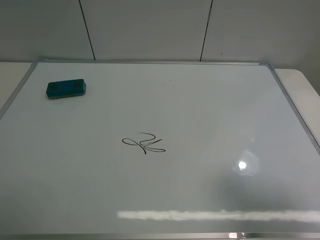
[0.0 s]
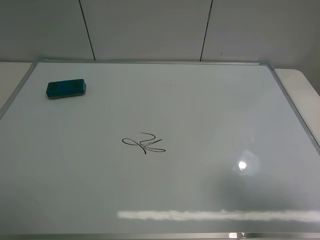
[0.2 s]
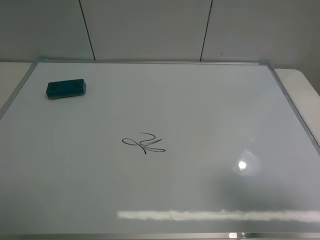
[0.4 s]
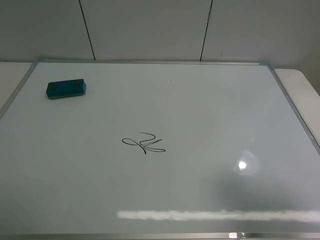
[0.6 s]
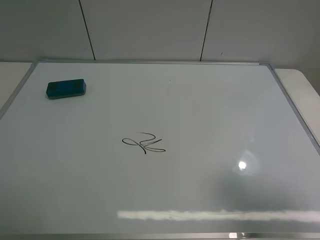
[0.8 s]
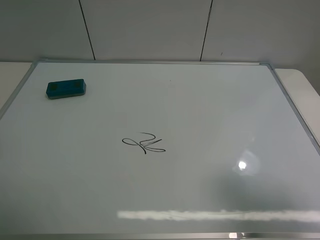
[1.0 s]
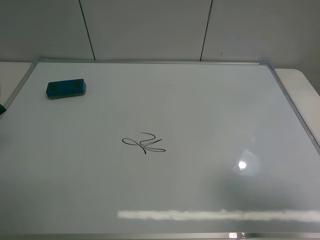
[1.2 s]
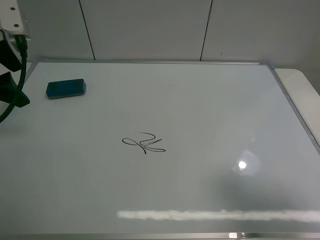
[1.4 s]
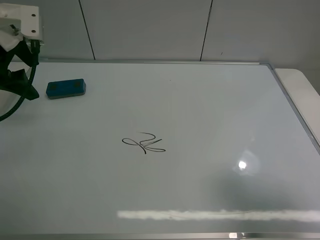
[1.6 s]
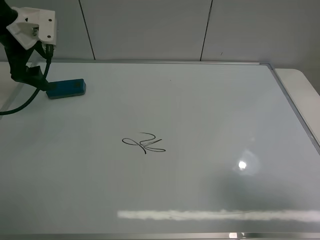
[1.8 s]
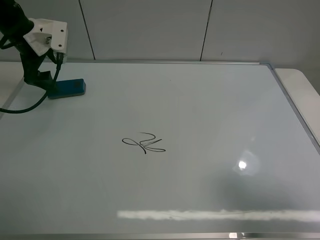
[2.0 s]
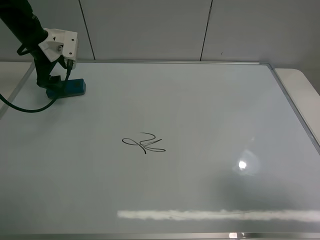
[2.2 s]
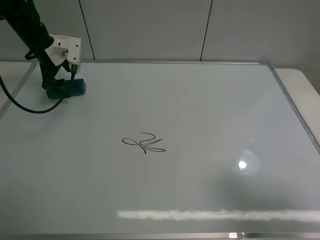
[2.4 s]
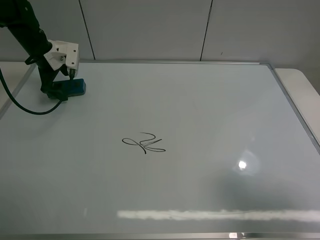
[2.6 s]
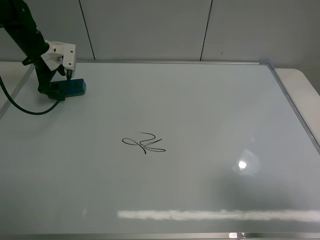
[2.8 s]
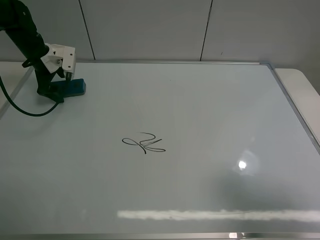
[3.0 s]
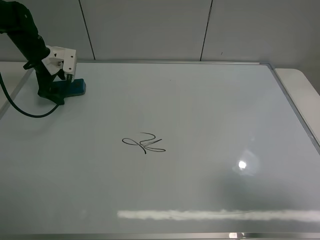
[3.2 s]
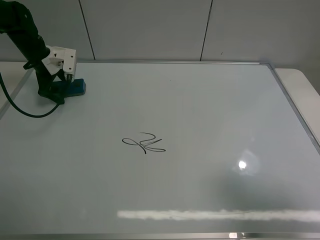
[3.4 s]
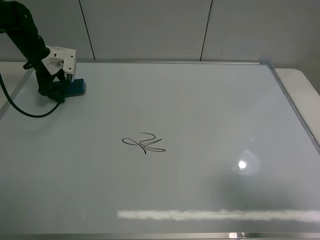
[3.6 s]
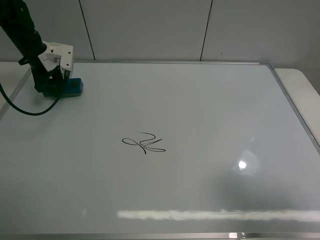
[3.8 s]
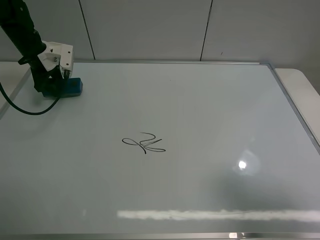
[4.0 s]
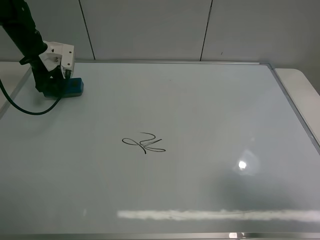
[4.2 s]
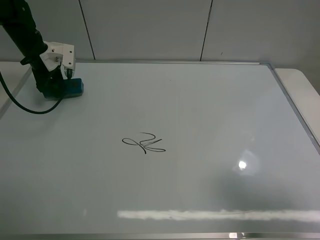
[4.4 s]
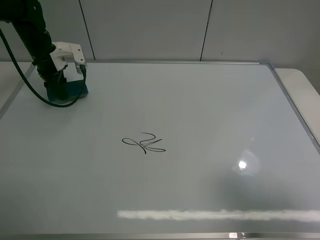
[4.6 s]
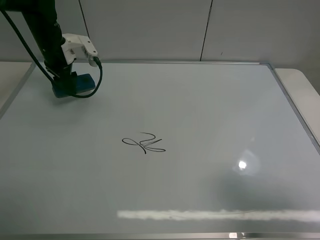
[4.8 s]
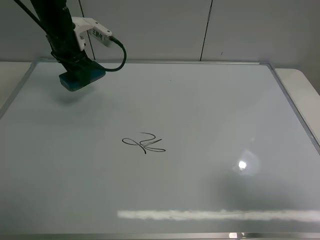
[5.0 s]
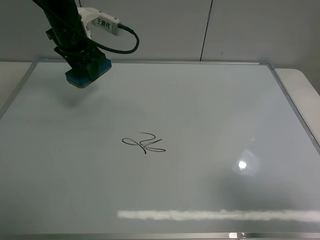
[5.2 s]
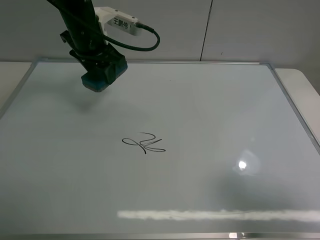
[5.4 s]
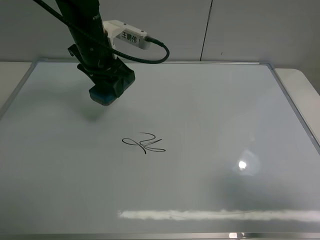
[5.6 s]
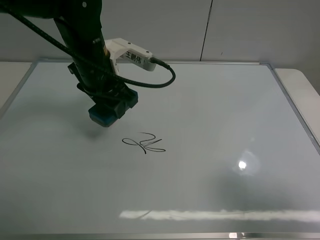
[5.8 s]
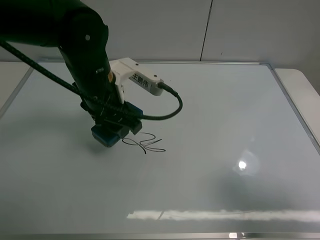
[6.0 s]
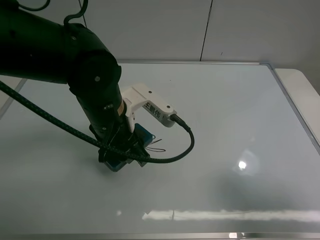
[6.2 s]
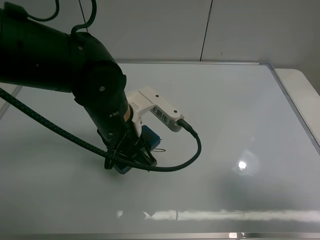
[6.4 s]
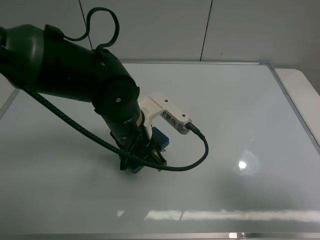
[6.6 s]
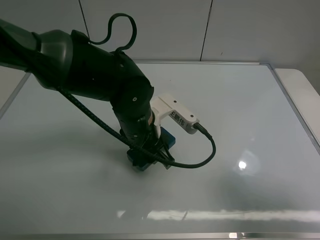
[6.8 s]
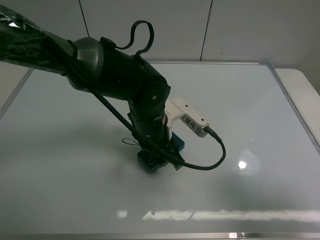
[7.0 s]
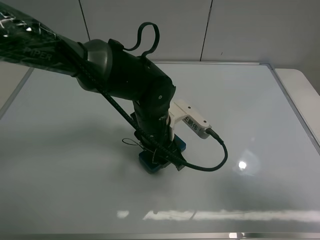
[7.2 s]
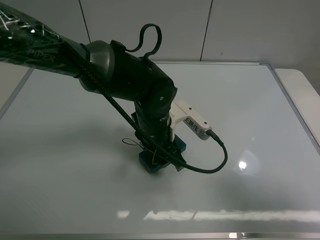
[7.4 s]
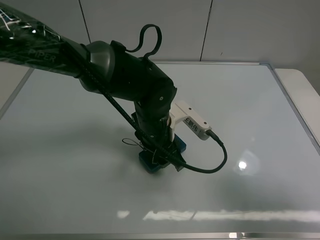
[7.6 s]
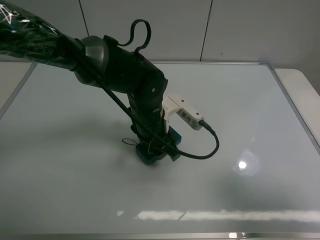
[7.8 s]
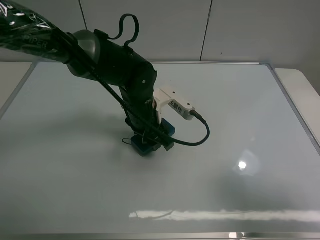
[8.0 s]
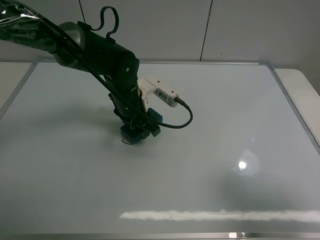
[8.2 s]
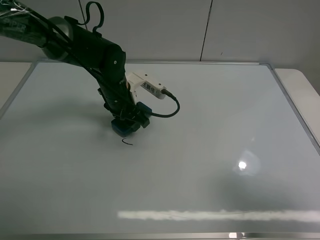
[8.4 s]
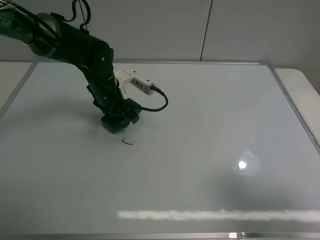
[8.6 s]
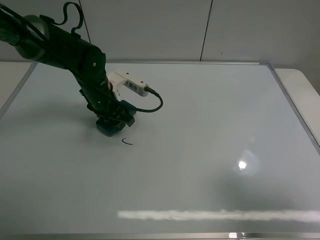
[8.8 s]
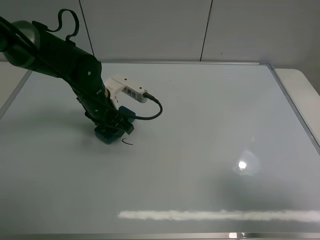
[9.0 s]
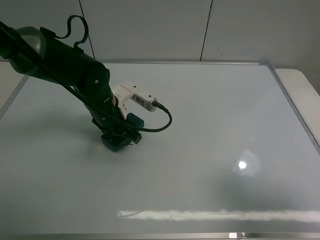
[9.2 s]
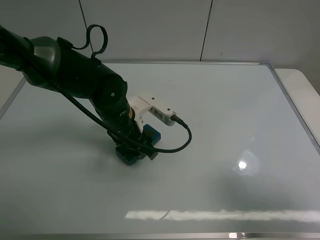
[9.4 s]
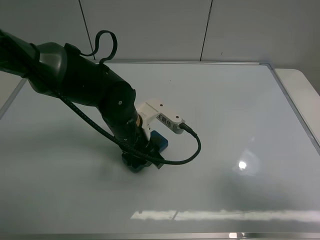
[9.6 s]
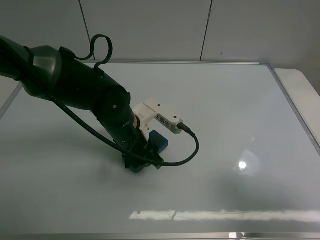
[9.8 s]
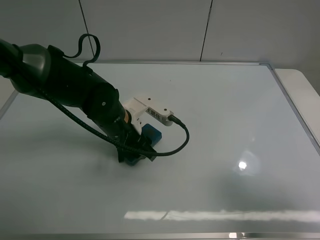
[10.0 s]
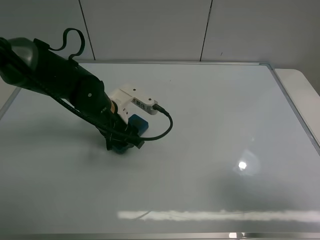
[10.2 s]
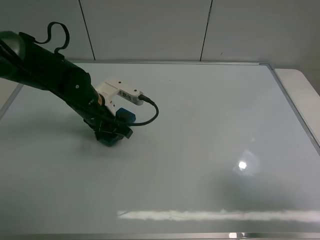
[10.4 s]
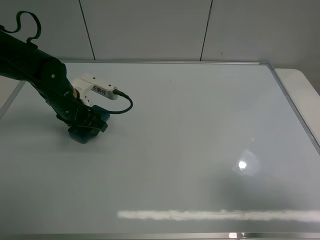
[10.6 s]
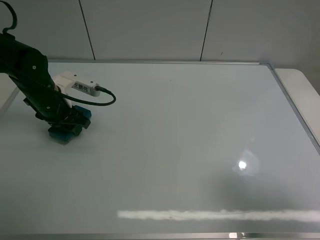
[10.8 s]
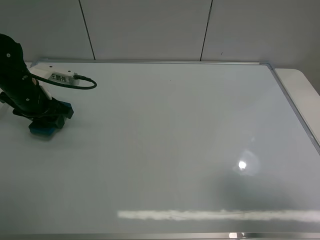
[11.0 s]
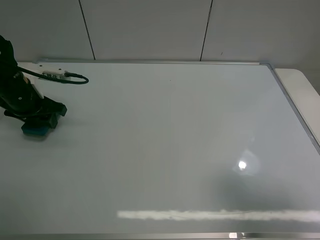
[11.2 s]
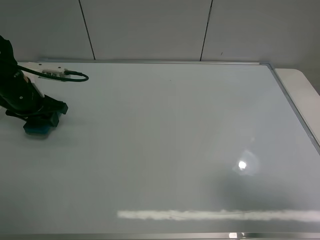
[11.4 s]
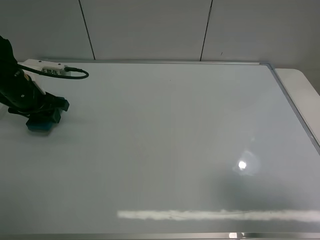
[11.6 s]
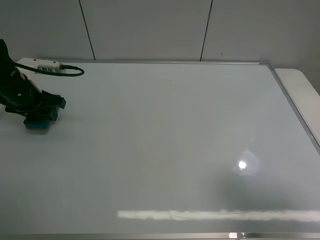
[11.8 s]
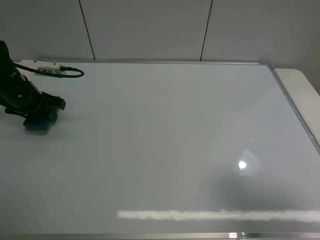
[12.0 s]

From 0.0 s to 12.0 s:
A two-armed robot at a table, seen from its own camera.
Task of the whole recording: use the left claw to pick up the whiteboard eraser, wipe the notes on the whiteboard clean, and then put them back in place.
Step, from 0.0 s to 4.2 s: Grasp the eraser with the left gripper.
Step, from 4.4 s to 9.6 s: Grasp the eraser and wipe the blackboard with the left gripper.
From 0.0 s to 1.6 s: The left gripper is displaced forward by about 35 cm.
From 1.6 s to 3.0 s: The left gripper travels downward and forward by some 20 cm.
From 3.0 s to 4.4 s: The left gripper closes.
From 4.4 s to 6.0 s: The left gripper is displaced to the right and backward by approximately 30 cm.
From 6.0 s to 7.6 s: The left gripper goes roughly 15 cm downward and to the right.
From 7.6 s to 9.0 s: The left gripper goes roughly 15 cm to the left and forward.
From 9.0 s to 10.4 s: The left gripper goes to the right and returns, roughly 5 cm each way.
From 10.4 s to 12.0 s: The left gripper travels to the left by roughly 15 cm.

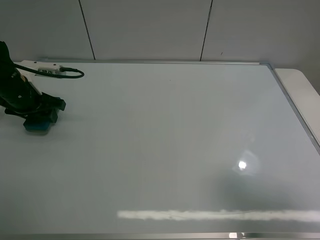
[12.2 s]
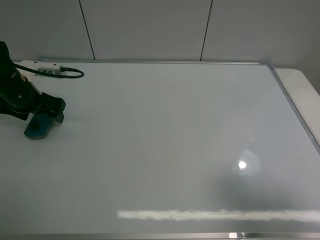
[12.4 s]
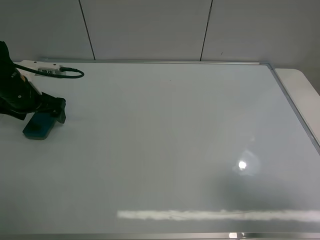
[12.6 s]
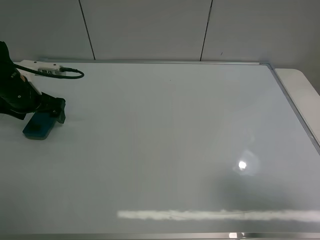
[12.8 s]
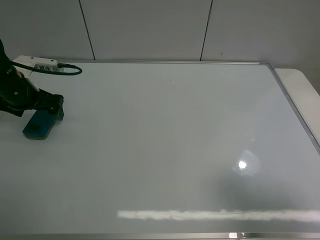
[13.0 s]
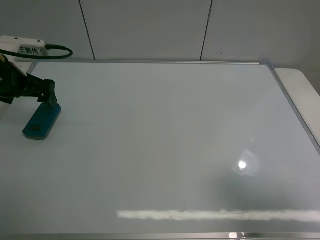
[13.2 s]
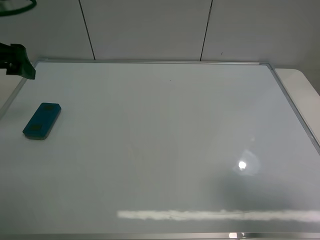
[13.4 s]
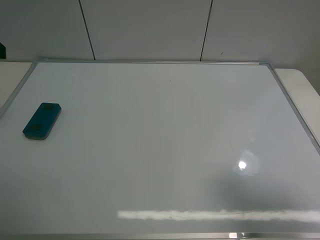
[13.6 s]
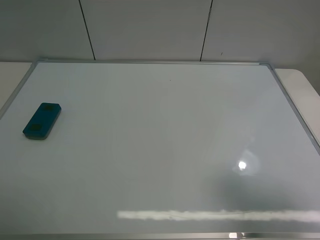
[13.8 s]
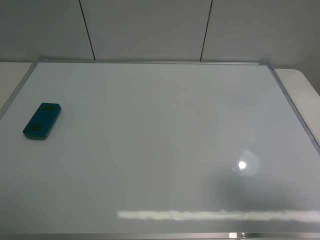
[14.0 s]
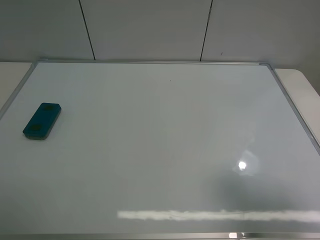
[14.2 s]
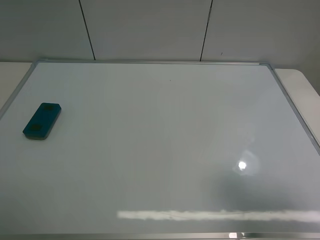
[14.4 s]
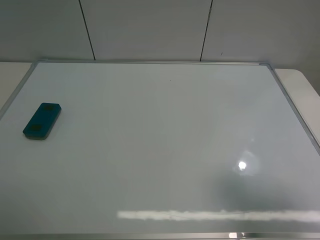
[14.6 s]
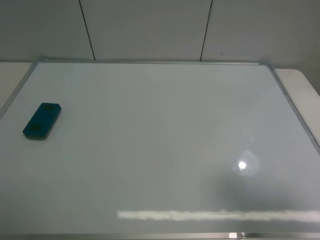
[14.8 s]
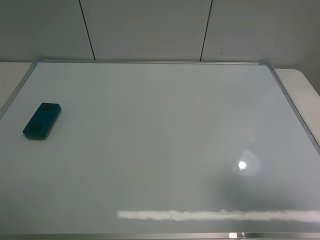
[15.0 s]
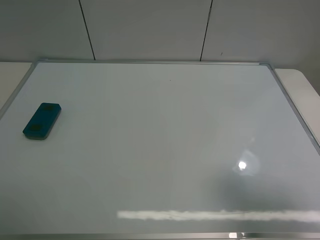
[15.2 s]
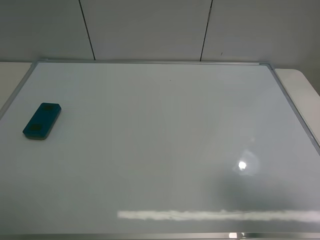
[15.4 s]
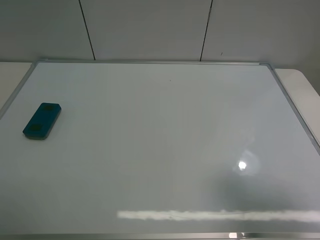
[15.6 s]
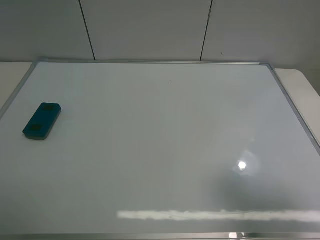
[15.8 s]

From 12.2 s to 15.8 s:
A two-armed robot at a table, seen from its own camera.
Task of the whole recording: use the left claw to pick up the whiteboard eraser, wipe the notes on the whiteboard clean, and then put them back in place.
From 12.2 s to 14.0 s: The left gripper goes approximately 35 cm backward and upward, and opens its fingers.
